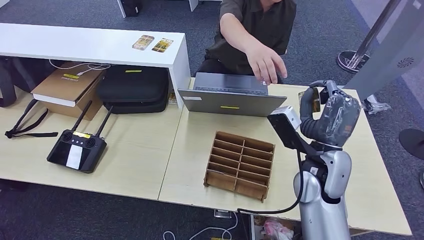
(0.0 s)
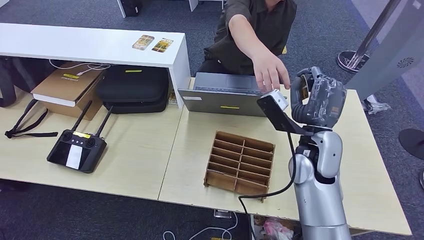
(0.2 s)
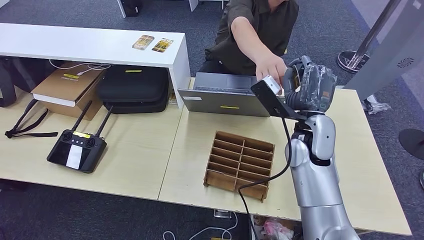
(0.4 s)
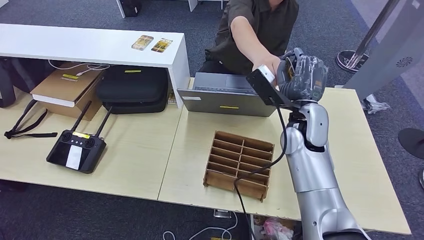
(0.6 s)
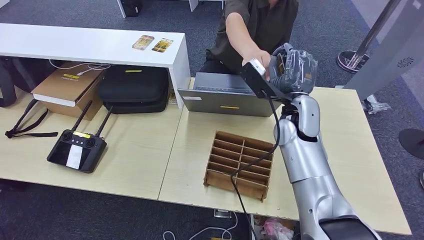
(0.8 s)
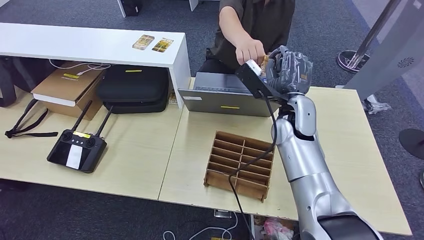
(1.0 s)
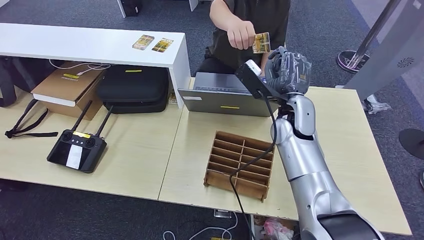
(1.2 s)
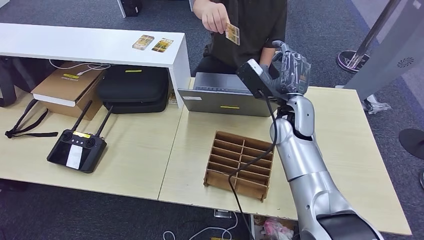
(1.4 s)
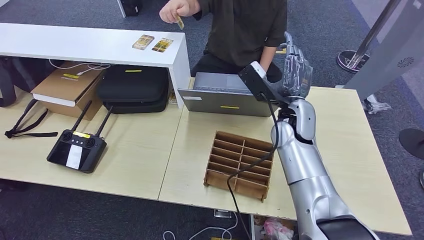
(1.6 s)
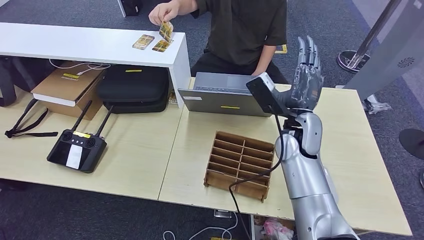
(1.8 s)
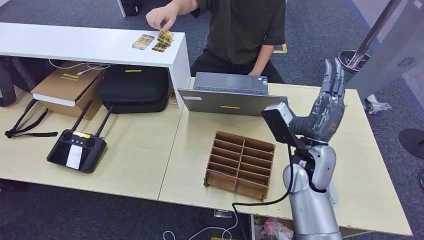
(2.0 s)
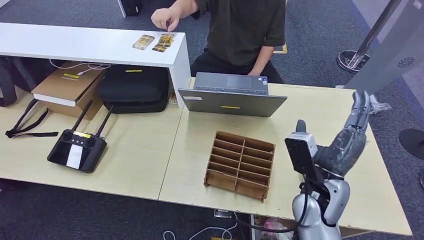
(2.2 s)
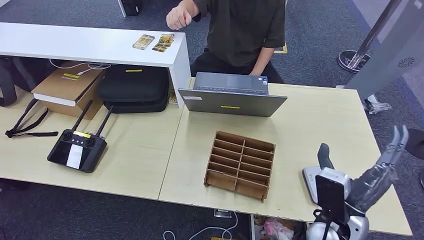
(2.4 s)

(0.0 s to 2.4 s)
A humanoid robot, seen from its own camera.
Step, 0.0 s - 2.4 s: Hand the room key to the person.
0.0 s - 1.2 s: The right hand goes some 10 cm forward.
1.2 s - 2.4 s: The right hand moves backward and downward, approximately 20 cm.
